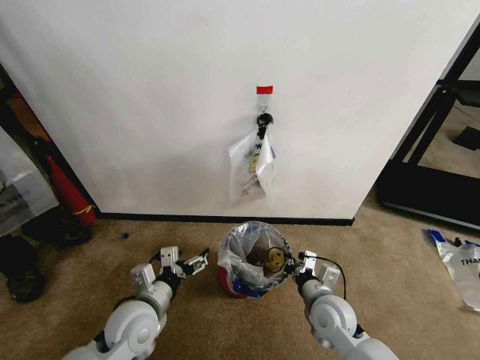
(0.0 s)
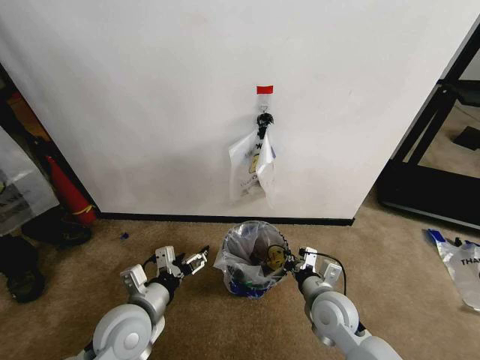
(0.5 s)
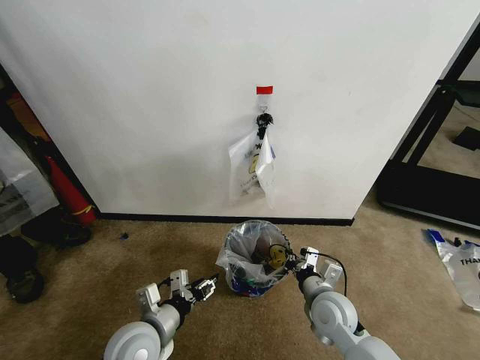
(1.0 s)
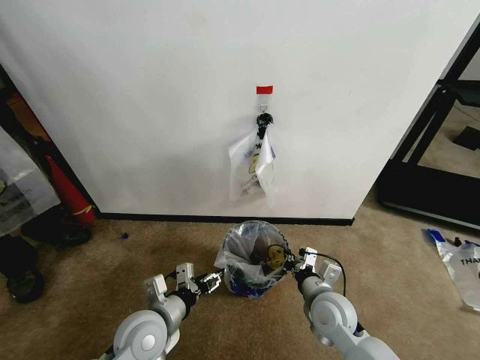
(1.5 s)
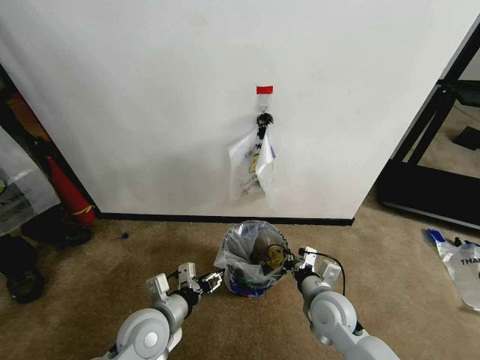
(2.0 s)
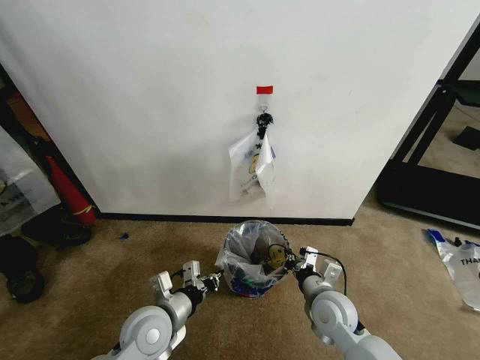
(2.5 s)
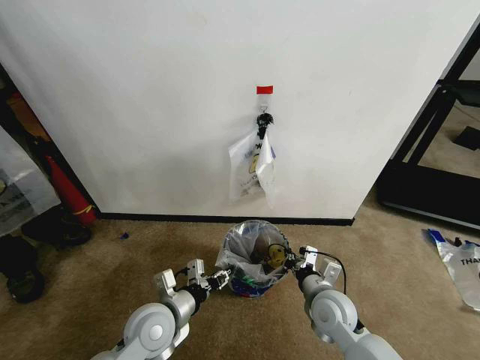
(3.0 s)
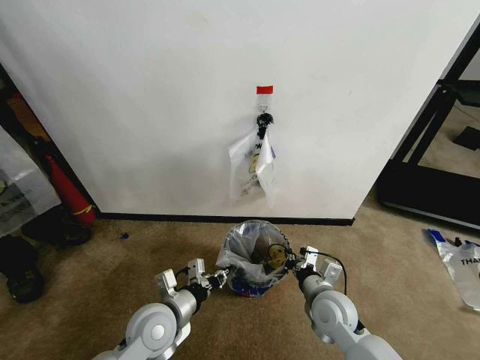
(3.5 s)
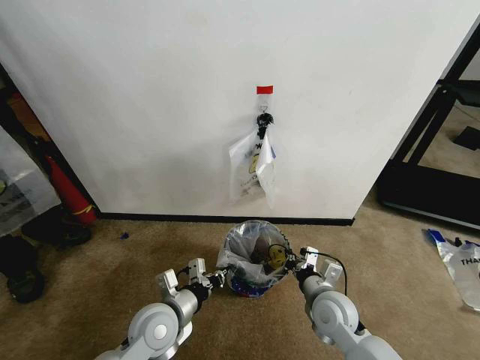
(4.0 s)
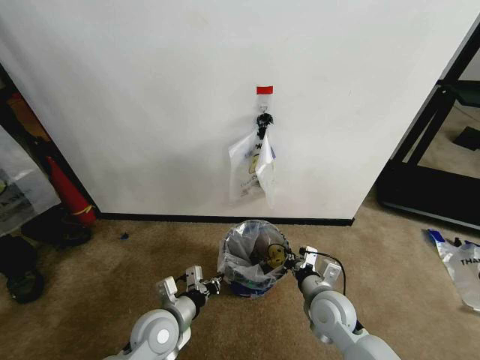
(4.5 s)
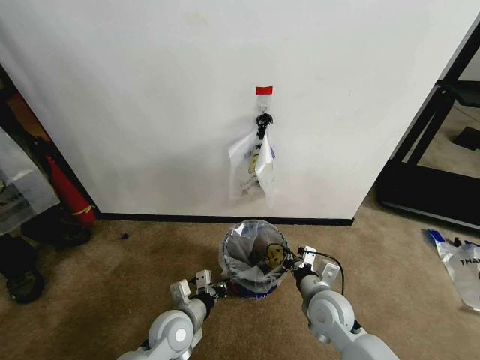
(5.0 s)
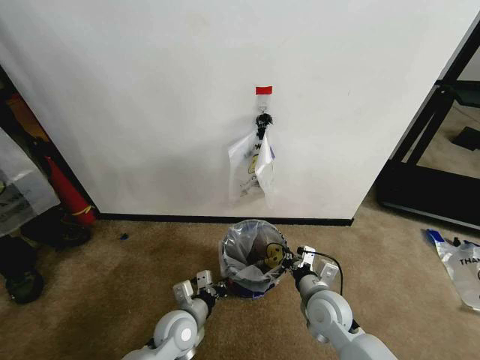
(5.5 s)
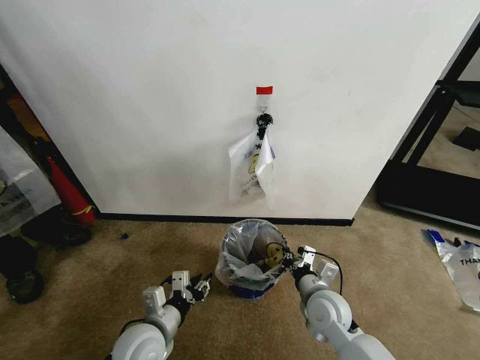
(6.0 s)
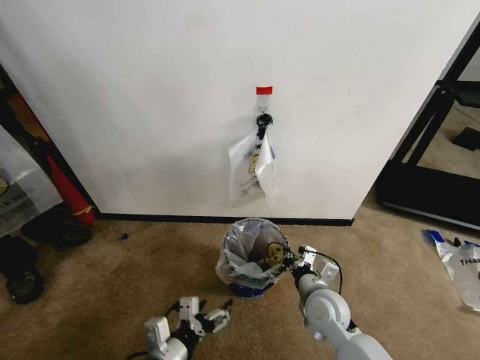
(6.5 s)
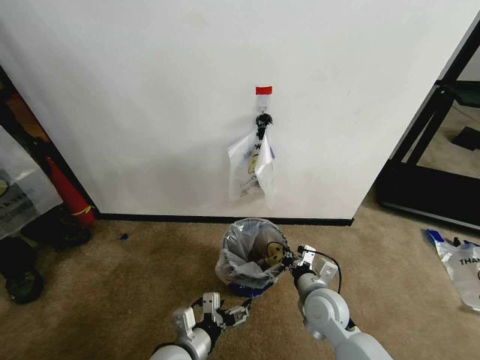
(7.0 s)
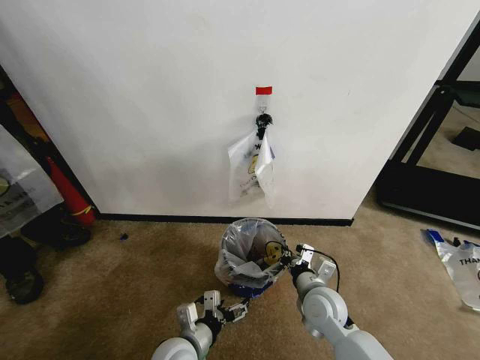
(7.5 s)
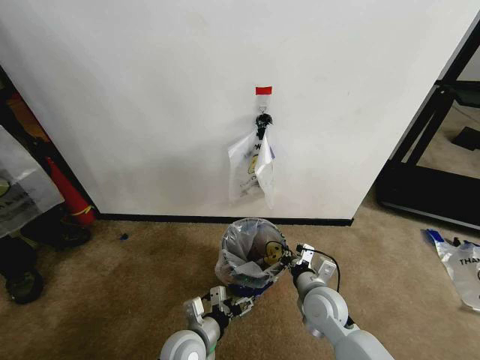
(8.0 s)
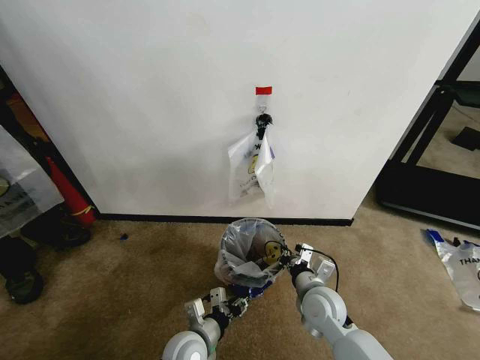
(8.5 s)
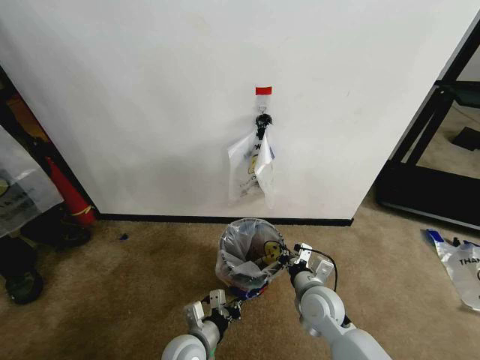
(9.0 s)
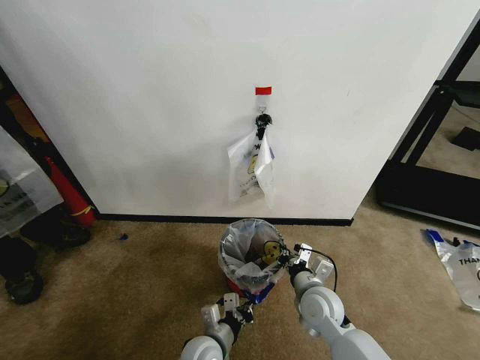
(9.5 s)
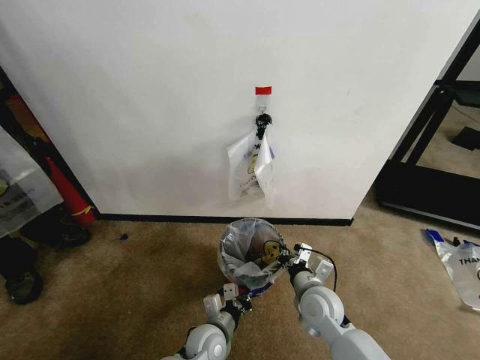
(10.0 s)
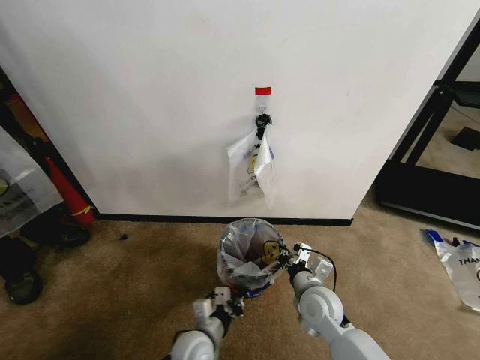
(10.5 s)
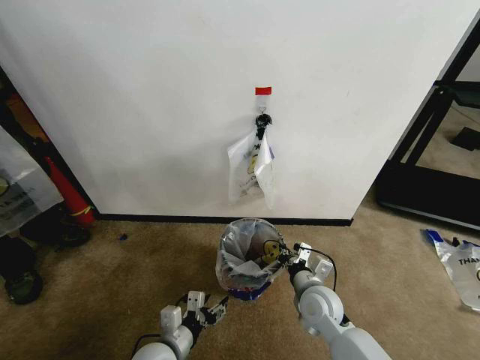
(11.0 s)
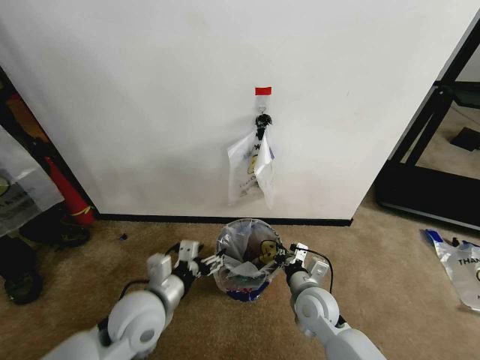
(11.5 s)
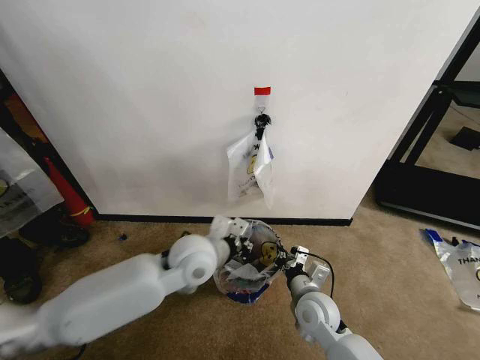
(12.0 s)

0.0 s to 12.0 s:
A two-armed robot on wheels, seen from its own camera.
Task of the whole recording: Pick up the garbage bag from the wall and place it over the trash bin.
0.0 to 2.0 s: The left gripper closes its fingers.
2.0 to 4.0 s: The left gripper closes up.
4.0 to 6.0 s: The left gripper travels downward and back again, some 10 cm each way.
6.0 to 8.0 s: The left gripper goes approximately 10 cm to the right and downward, and opens its fingers.
8.0 to 10.0 s: The left gripper is displaced downward by roughly 5 cm, and closes up.
10.0 to 12.0 s: The left gripper moves upward, roughly 25 cm, and opens and closes again.

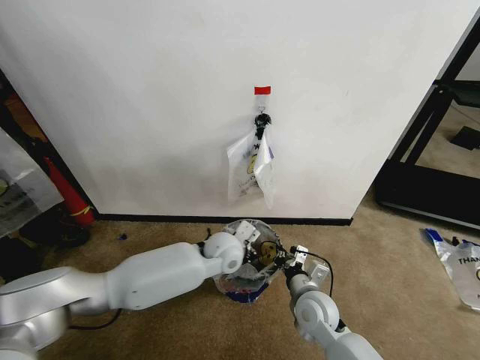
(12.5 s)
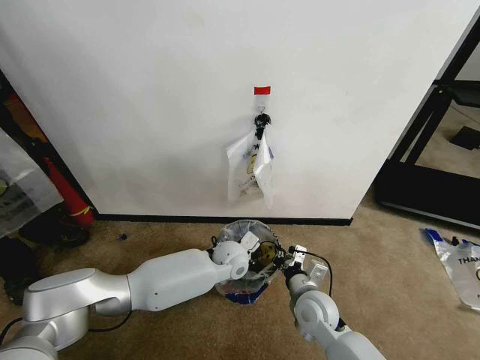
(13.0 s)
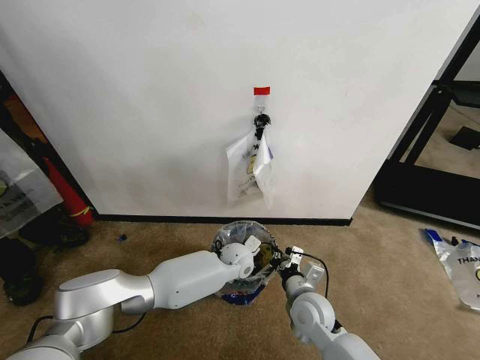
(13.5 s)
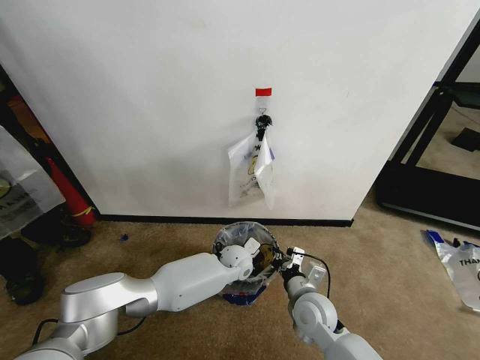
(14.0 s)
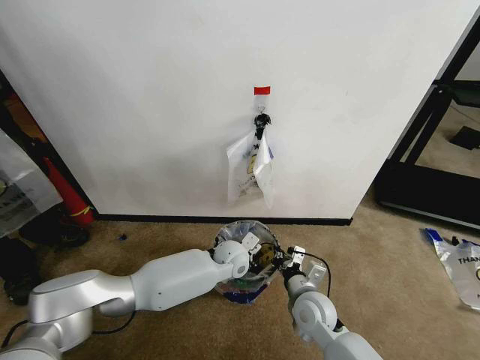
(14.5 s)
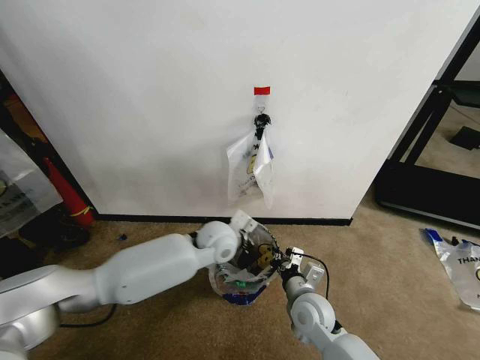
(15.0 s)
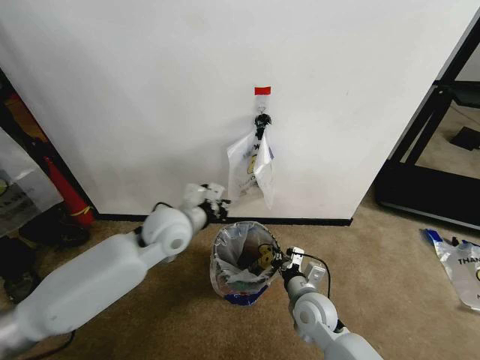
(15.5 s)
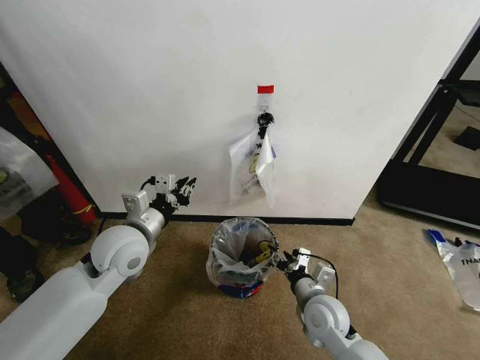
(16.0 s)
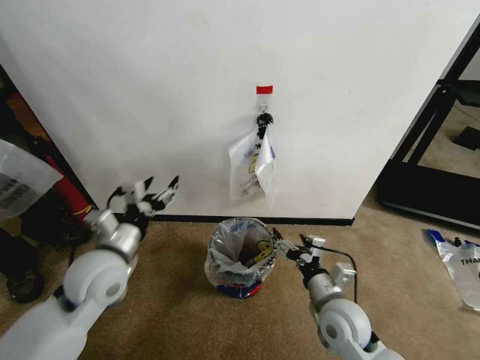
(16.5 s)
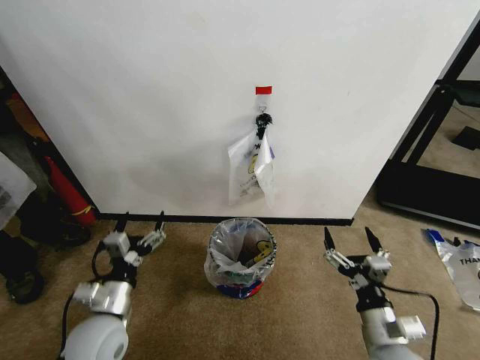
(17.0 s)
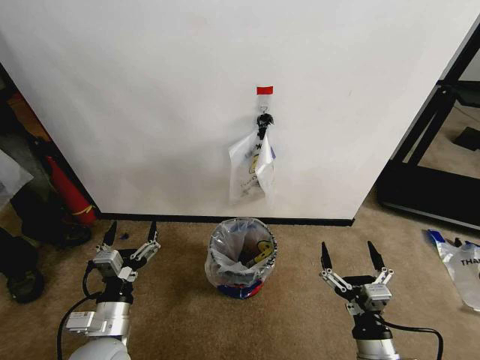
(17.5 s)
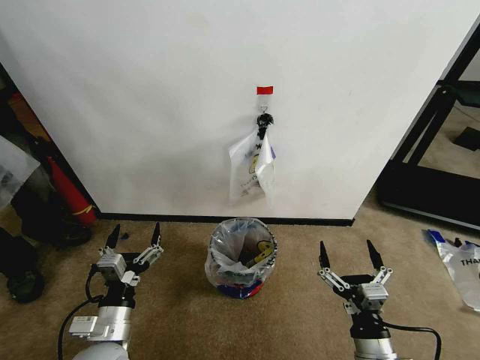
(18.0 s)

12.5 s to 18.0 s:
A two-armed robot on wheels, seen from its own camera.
Task of the whole recording: Pick up the garbage bag from the wall and place it over the trash bin.
12.5 to 14.5 s: The left gripper travels downward by about 10 cm.
14.5 to 16.0 s: The right gripper opens its fingers. The left gripper goes approximately 30 cm to the left, upward and backward.
16.0 to 18.0 s: The right gripper travels backward by roughly 15 cm, and opens. Meanwhile the left gripper heads backward and downward, covering about 20 cm, and opens up.

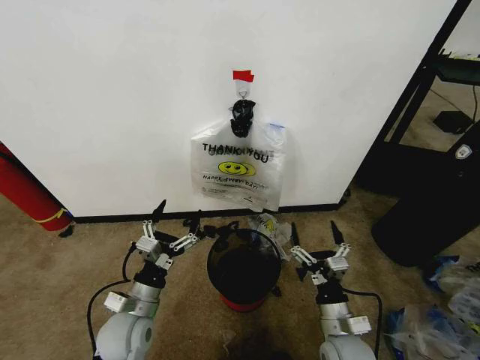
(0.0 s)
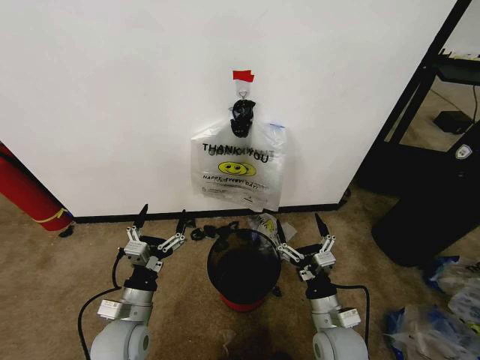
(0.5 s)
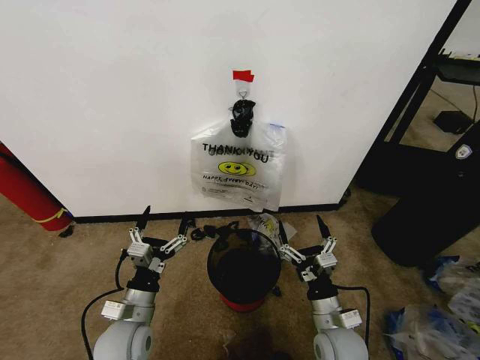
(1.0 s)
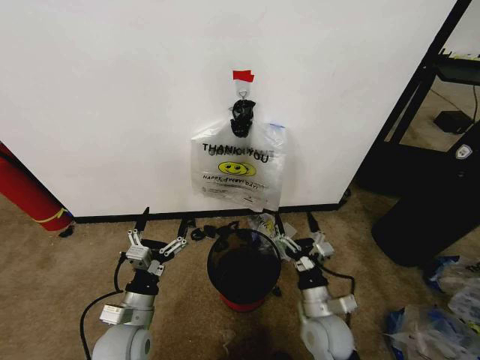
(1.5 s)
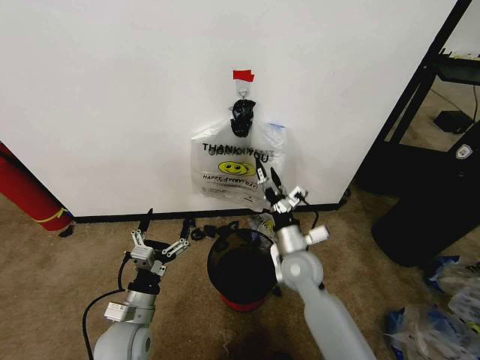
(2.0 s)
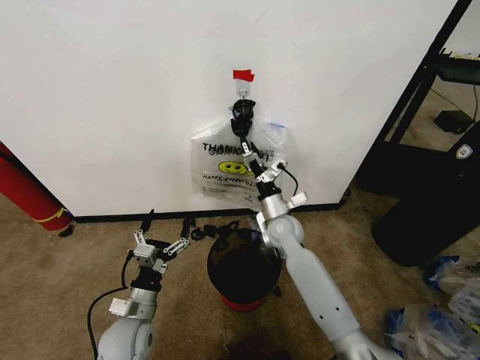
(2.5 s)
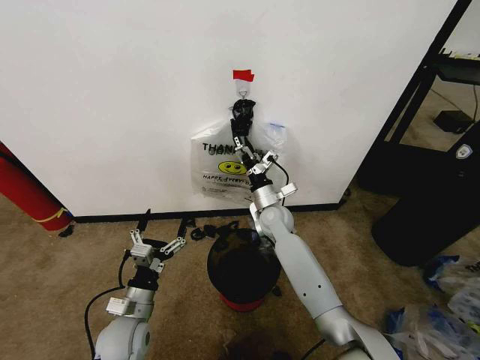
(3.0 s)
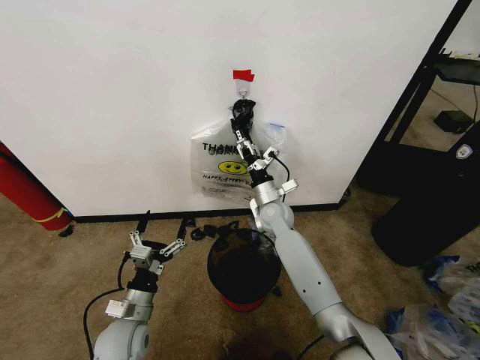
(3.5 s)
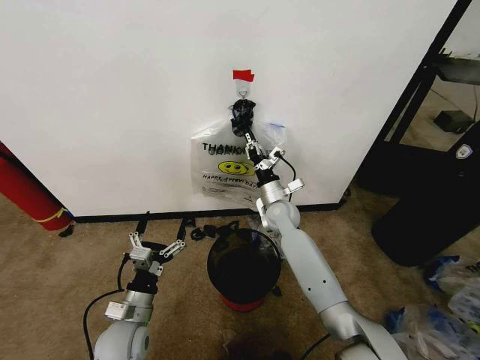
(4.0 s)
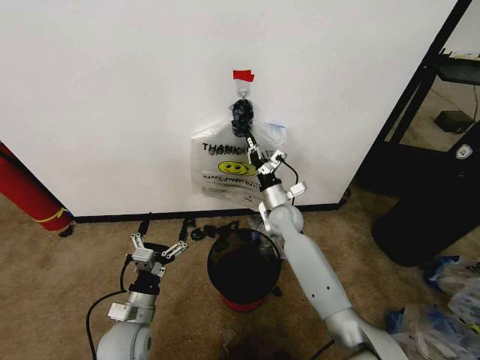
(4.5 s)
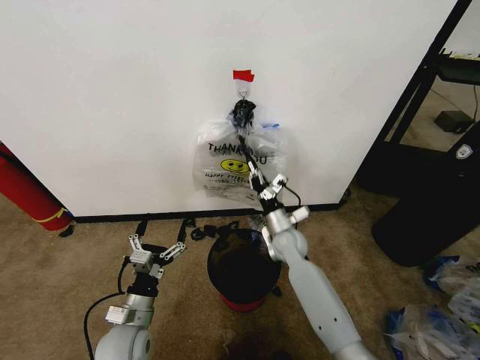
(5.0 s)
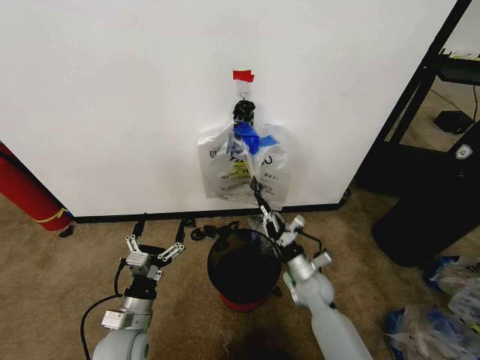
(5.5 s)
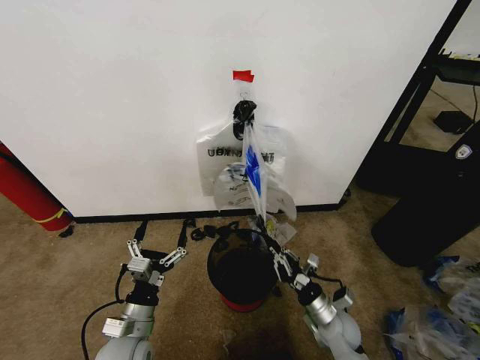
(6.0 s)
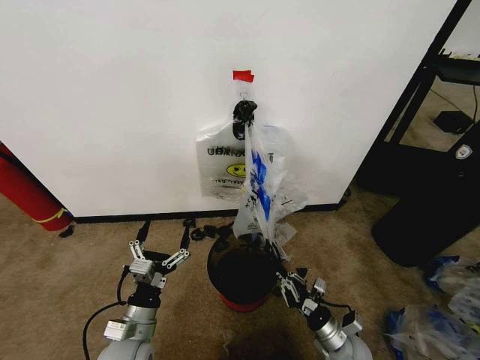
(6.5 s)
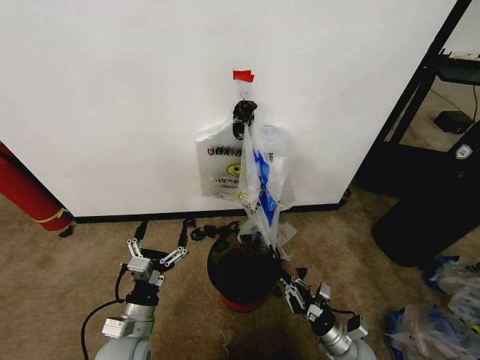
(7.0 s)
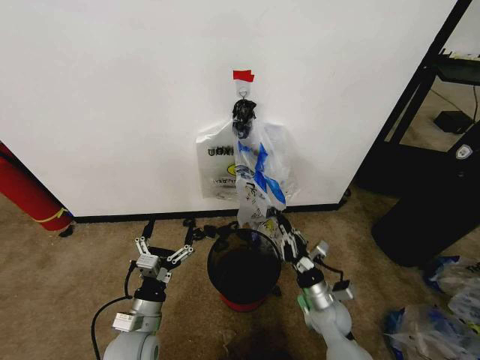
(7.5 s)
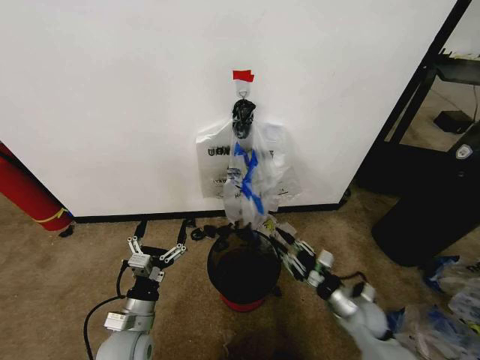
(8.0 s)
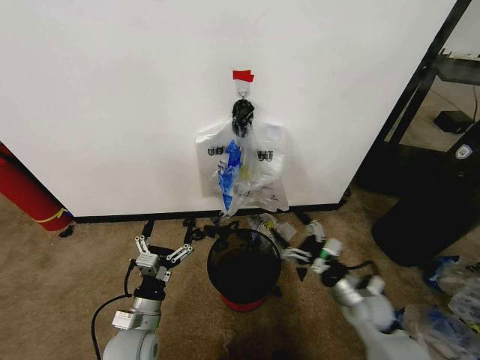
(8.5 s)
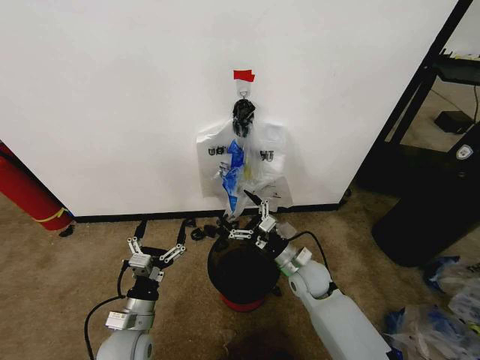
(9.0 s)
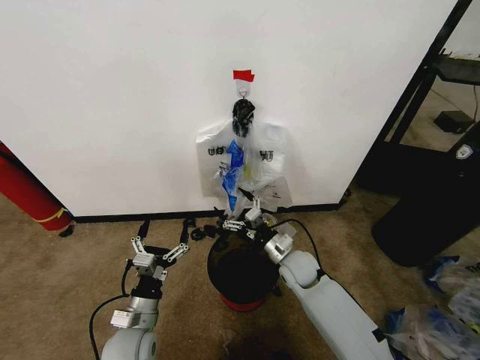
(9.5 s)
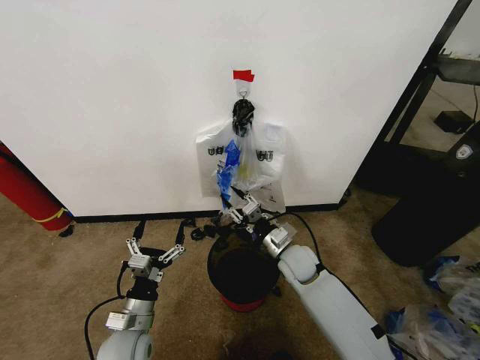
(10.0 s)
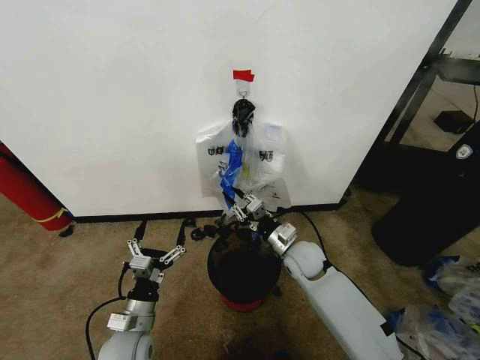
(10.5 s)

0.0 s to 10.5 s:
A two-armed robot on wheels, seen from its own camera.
Task of the whole recording: Pick up the garbage bag from the wall and place it over the trash bin.
2.0 to 4.0 s: The right gripper travels forward by some 15 cm, and closes its fingers.
4.0 to 6.5 s: The right gripper heads backward, downward and to the right, covering about 40 cm.
6.5 to 8.5 s: The right gripper goes approximately 15 cm upward and forward, and opens.
8.5 to 10.5 s: The right gripper heads to the left and forward, covering about 20 cm, and closes.
